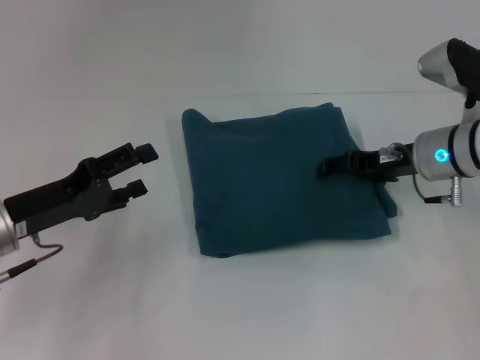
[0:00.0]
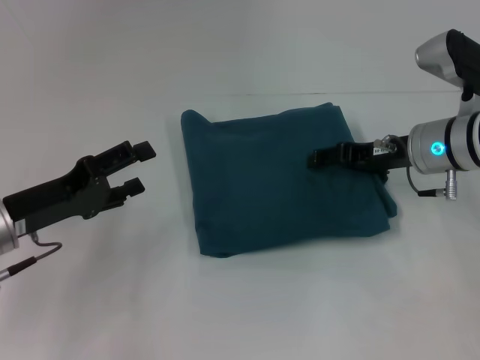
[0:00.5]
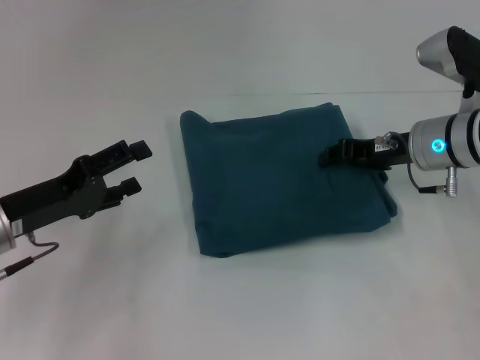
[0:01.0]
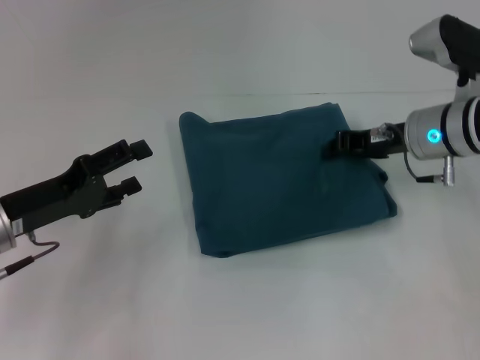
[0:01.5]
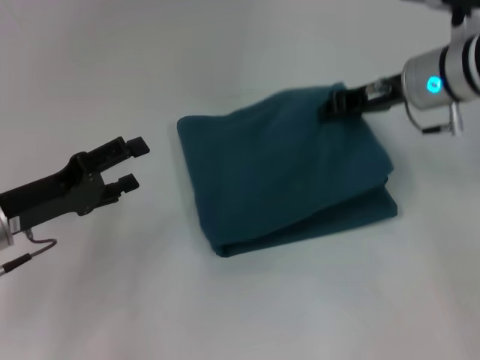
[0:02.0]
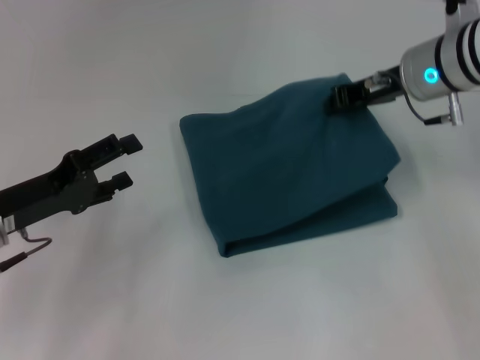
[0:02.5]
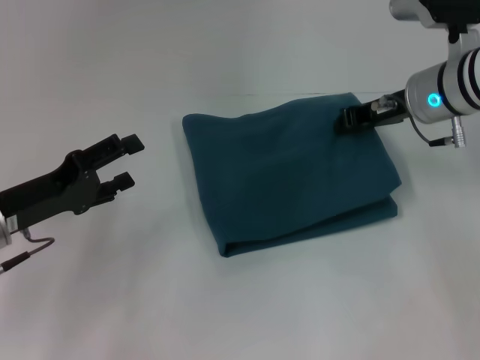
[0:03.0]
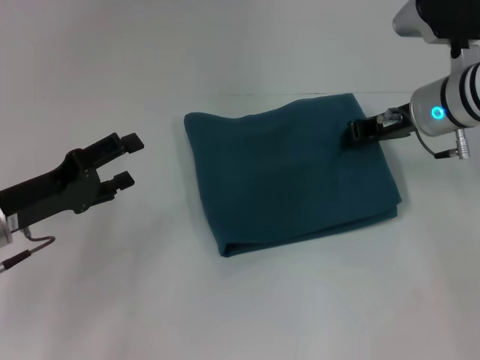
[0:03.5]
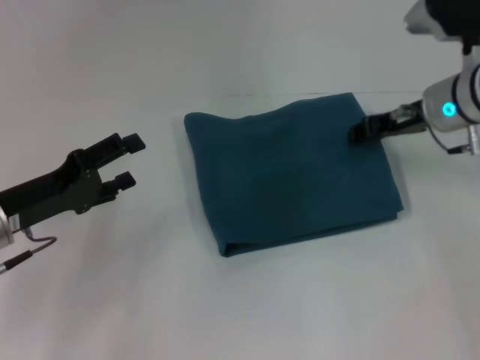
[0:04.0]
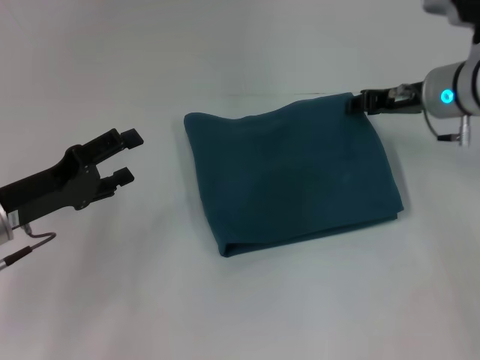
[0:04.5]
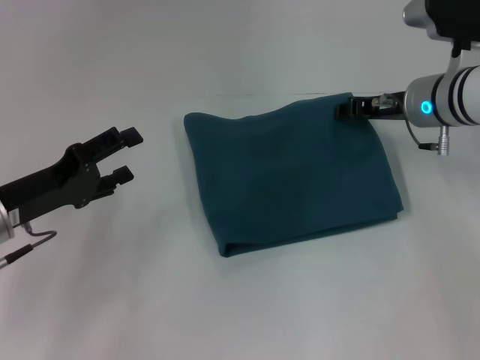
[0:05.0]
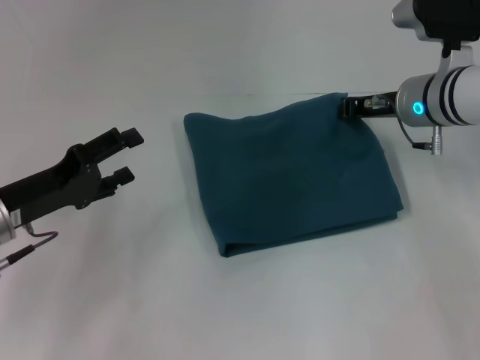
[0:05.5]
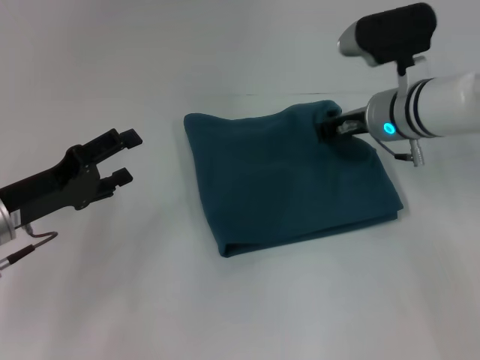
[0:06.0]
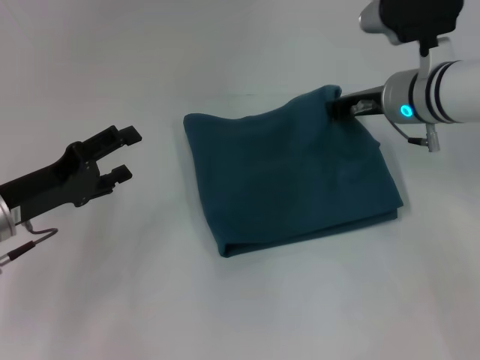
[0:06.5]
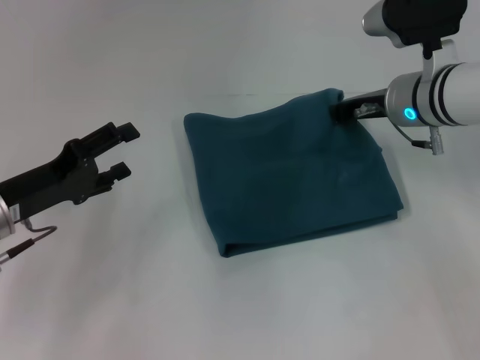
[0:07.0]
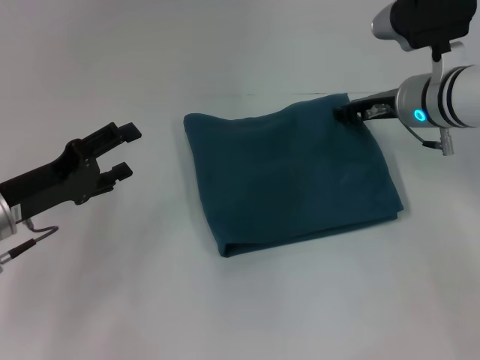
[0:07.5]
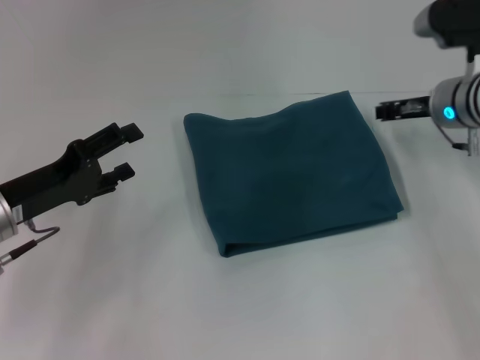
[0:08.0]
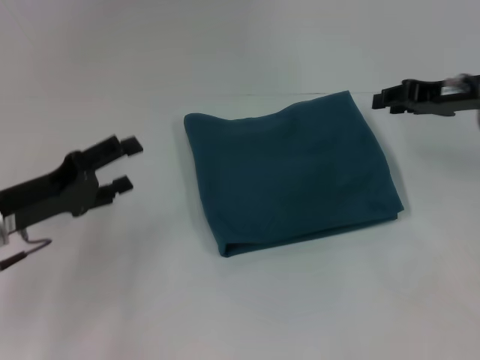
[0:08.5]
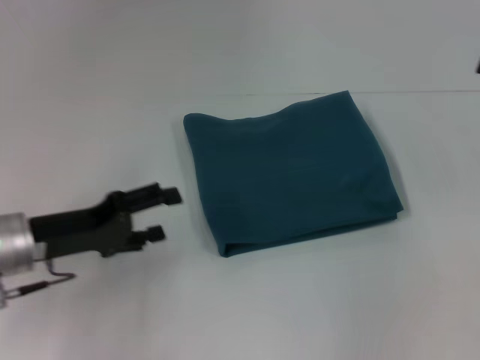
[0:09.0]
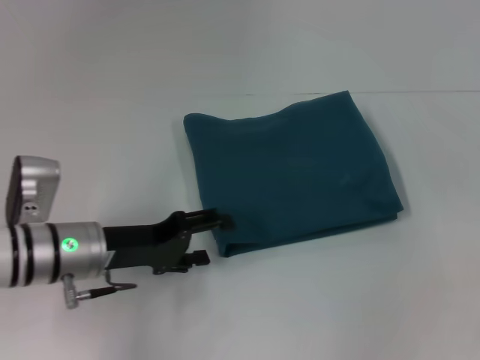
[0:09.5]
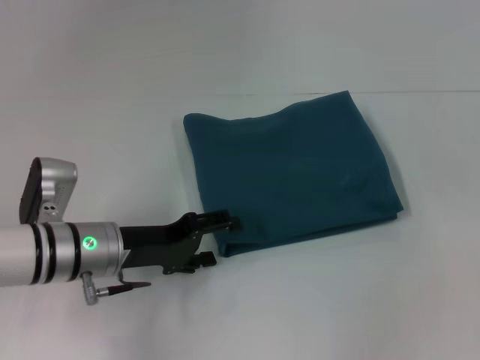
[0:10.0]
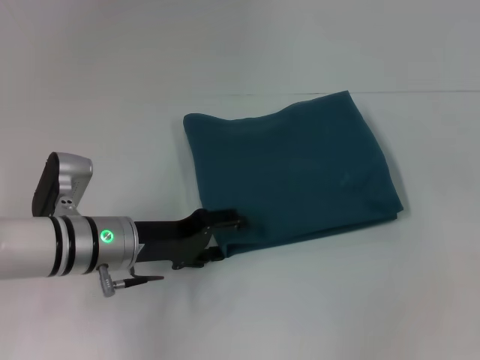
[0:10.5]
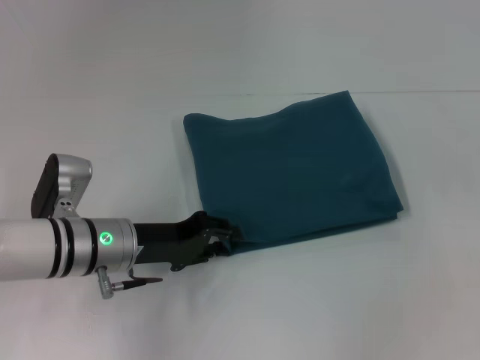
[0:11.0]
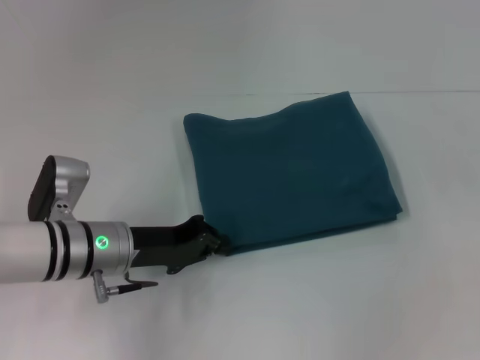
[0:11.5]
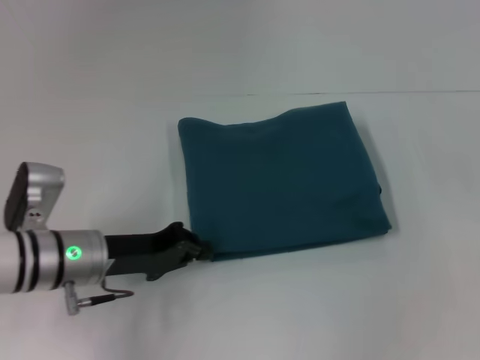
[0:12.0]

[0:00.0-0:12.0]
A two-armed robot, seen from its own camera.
0:00.0 to 0:02.0: The right gripper is displaced upward by some 10 cm, and closes up.
0:02.0 to 0:04.0: The grippers make only small movements.
0:04.0 to 0:06.0: The right gripper shifts roughly 5 cm to the left, and closes its fingers.
0:06.0 to 0:08.0: The right gripper is displaced to the right by approximately 5 cm.
0:08.0 to 0:10.0: The left gripper moves to the right, some 10 cm. The right gripper heads to the right and backward, covering roughly 20 cm, and opens.
0:10.0 to 0:12.0: The left gripper closes.

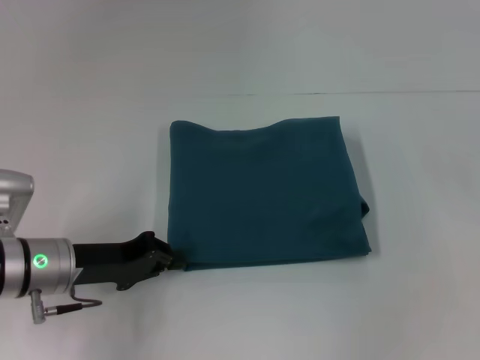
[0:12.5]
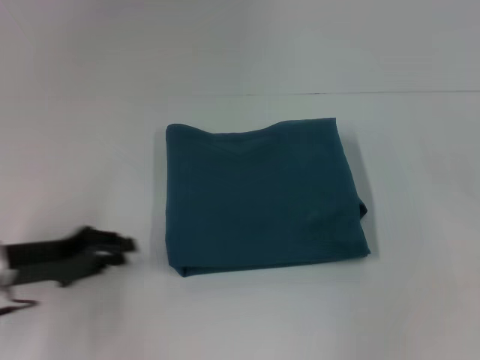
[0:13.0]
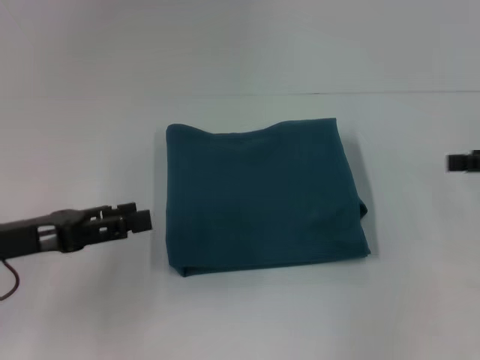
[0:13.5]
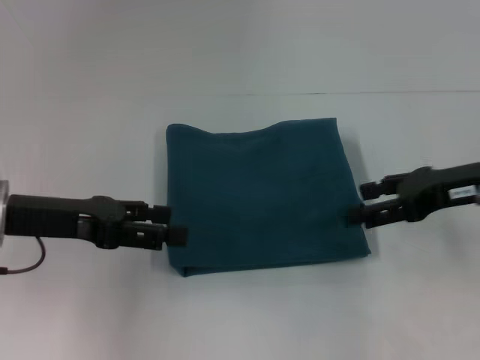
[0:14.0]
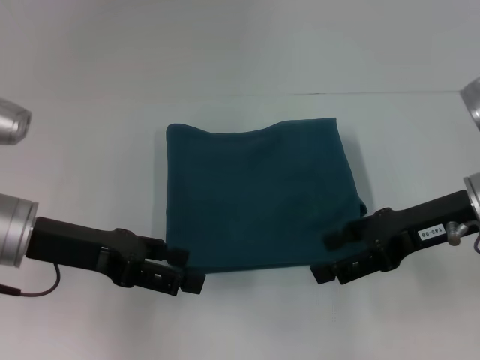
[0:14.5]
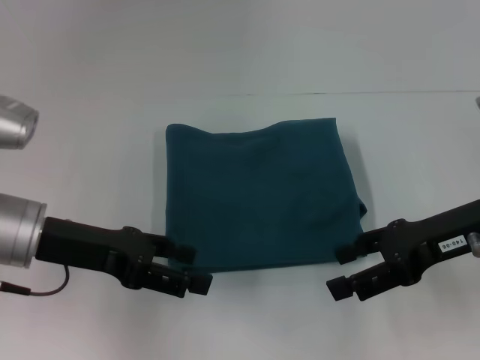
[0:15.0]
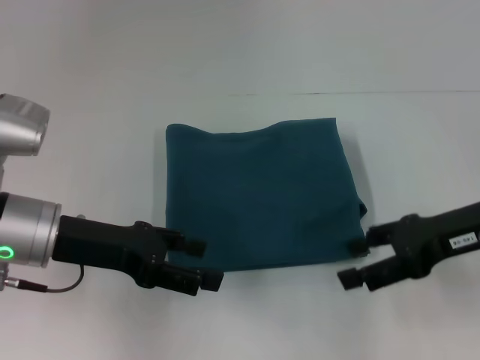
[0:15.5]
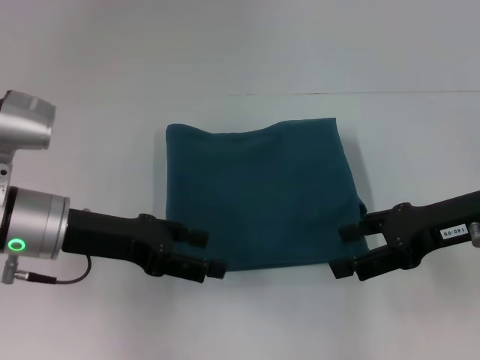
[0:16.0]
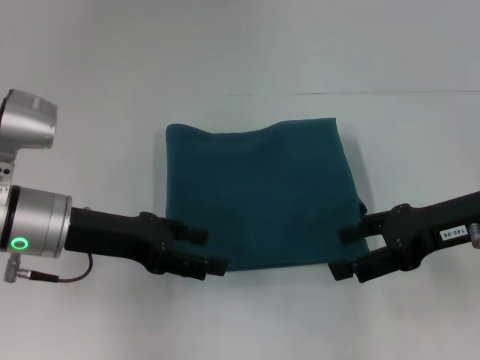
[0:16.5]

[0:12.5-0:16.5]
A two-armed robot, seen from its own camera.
0:12.5 to 0:14.5: The left gripper is displaced upward by about 10 cm, and opens up. Meanwhile the right gripper goes some 20 cm to the left.
0:14.5 to 0:16.5: The grippers move only a little.
